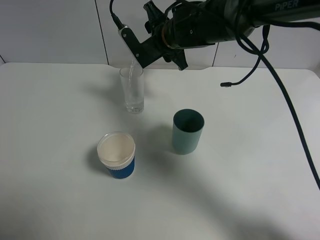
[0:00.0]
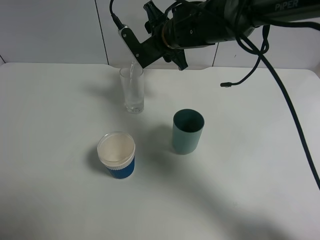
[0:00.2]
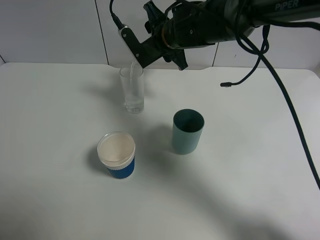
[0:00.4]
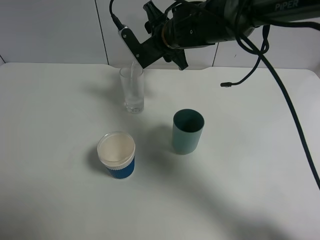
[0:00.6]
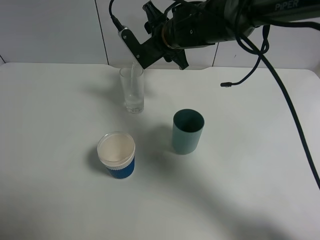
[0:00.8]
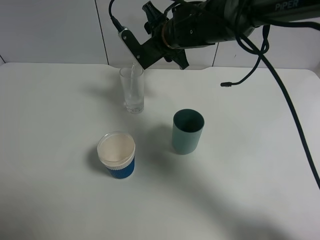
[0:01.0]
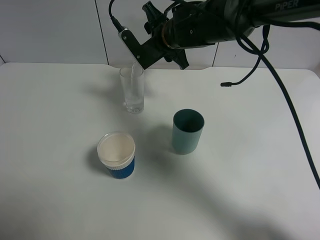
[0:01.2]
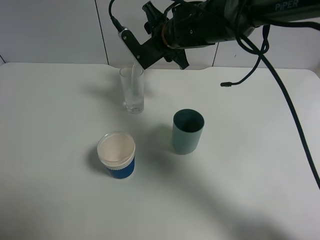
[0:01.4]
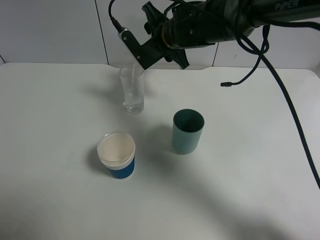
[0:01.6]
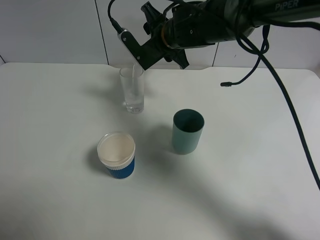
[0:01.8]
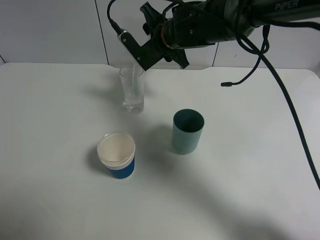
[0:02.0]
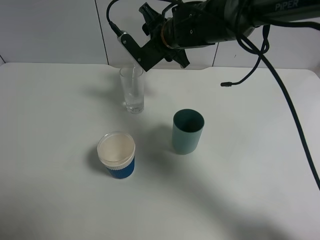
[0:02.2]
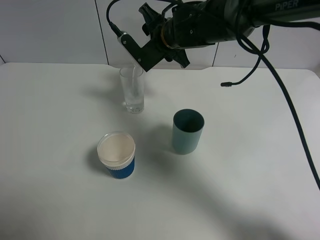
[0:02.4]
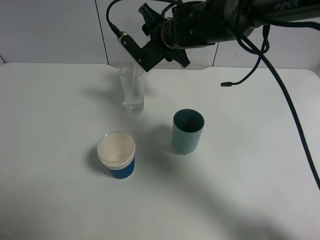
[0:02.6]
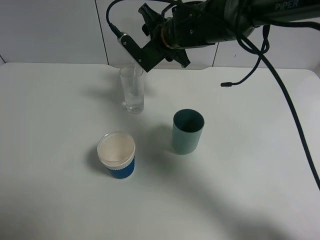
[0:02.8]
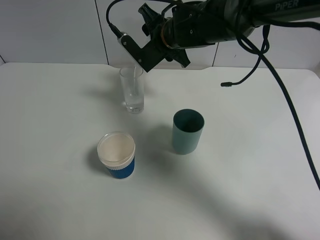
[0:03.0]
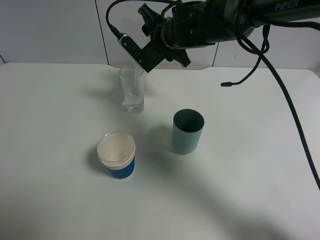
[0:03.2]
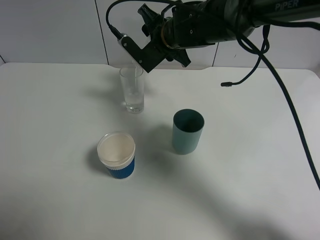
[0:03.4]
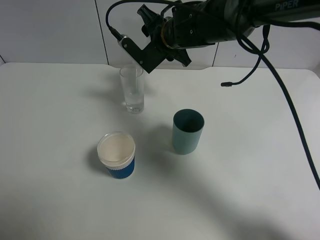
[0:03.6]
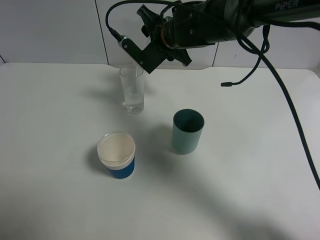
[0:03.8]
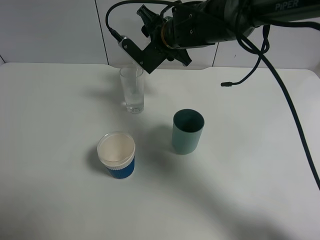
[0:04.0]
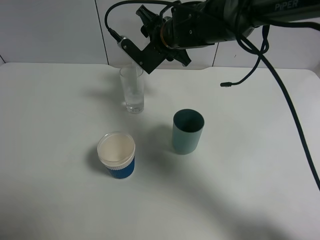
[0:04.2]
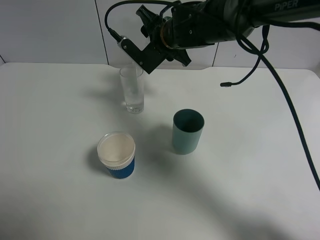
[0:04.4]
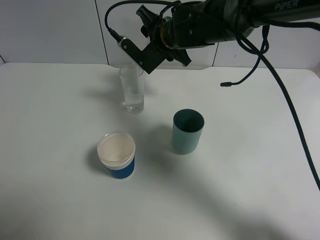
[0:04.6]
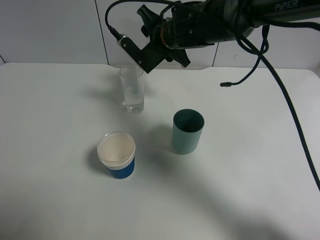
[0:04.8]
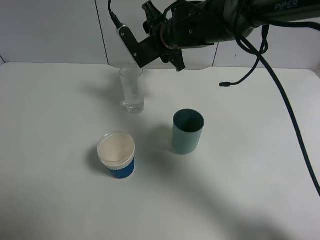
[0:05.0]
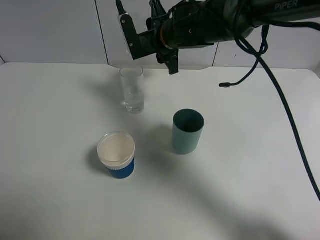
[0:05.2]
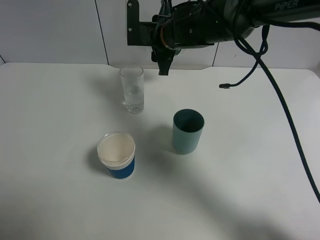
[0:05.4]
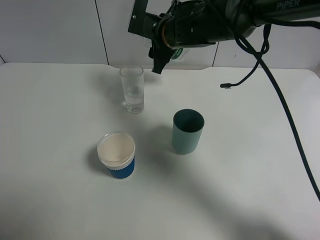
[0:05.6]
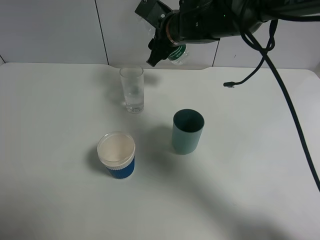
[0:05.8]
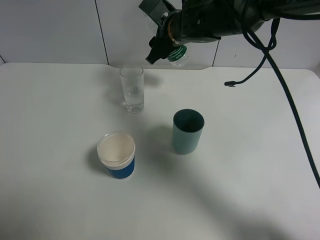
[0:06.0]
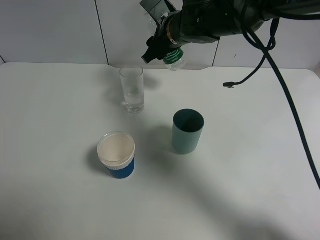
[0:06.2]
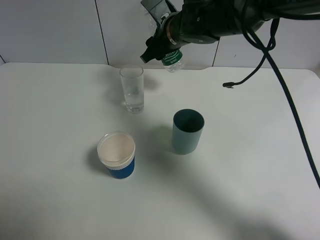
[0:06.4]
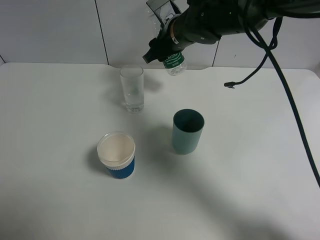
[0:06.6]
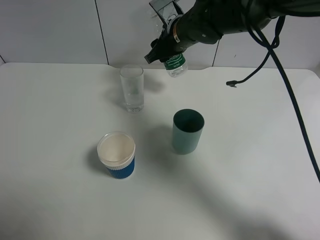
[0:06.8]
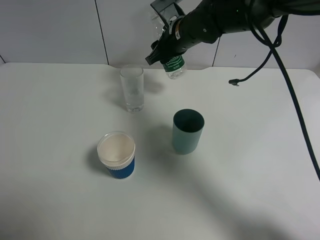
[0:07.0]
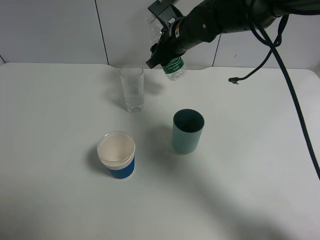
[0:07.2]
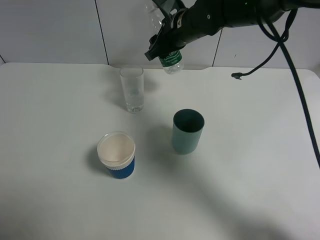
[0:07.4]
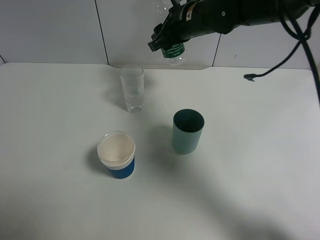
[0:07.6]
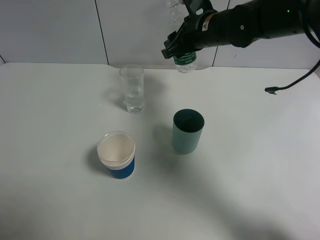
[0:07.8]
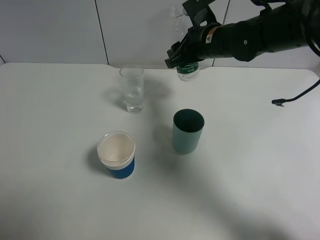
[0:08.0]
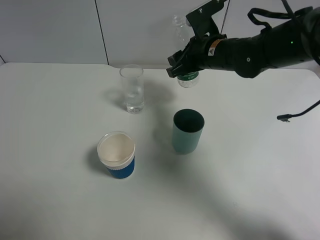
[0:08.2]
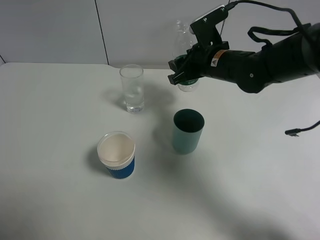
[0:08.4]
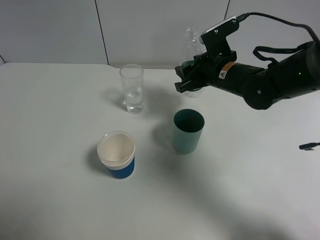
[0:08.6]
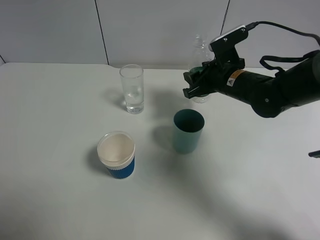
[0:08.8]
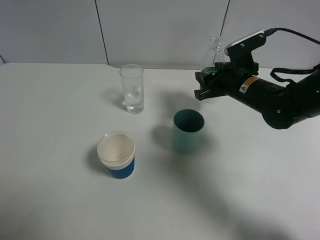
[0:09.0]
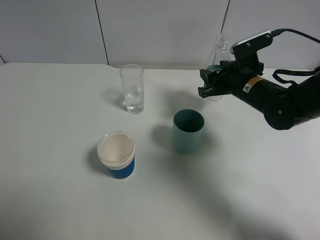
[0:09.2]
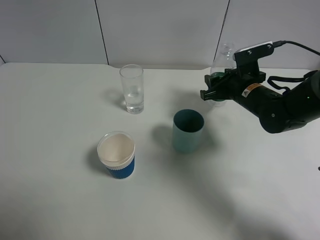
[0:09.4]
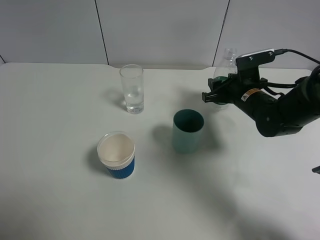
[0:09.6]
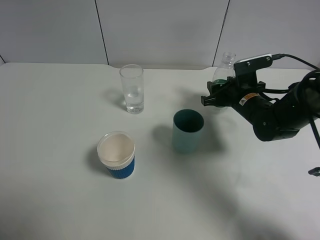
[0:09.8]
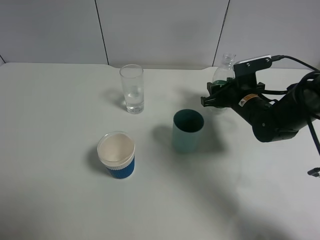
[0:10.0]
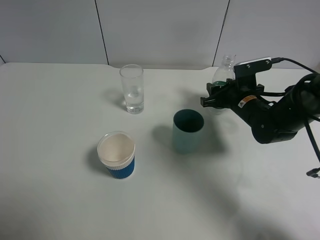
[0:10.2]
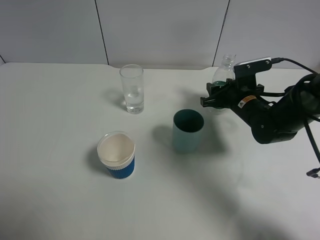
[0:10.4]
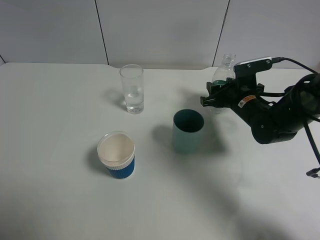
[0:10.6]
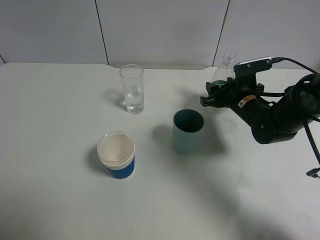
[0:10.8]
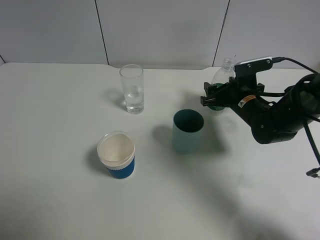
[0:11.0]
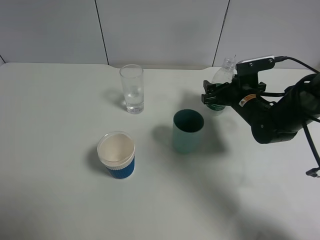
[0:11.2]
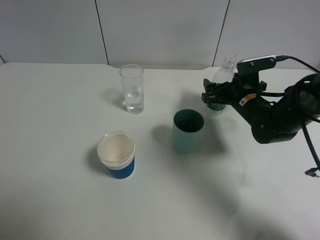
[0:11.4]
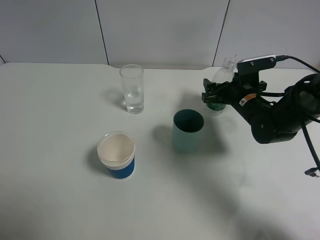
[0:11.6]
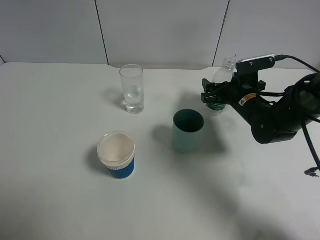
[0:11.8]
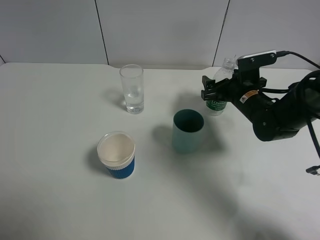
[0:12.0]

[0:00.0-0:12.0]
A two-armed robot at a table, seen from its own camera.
Task of the whole recording: use a gripper to hold the bottle of the drink and pour it into a random cup.
Step, 0:00.0 to 0:05.6: Pour the mineral water into the glass with the right gripper.
0:00.0 to 0:01.6: Both grippers stay about where they are.
0:01.6 to 0:03.0: The grippers move only a little.
0:03.0 to 0:04.4: Neither gripper changes place.
0:06.0 to 0:07.6: The grippers stay close to where they were, moving slightly.
0:07.6 to 0:09.0: The right gripper heads to the right, downward and backward, covering roughly 15 cm.
0:09.0 to 0:10.4: The right gripper heads downward, covering approximately 5 cm.
0:10.4 to 0:12.0: The right gripper opens its fingers.

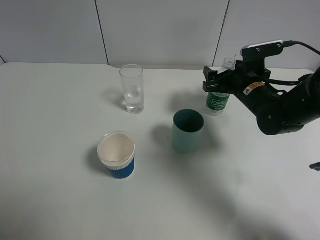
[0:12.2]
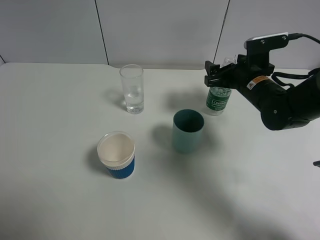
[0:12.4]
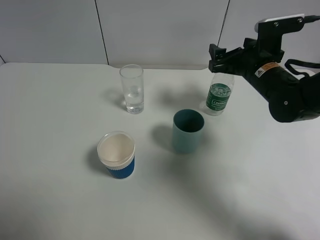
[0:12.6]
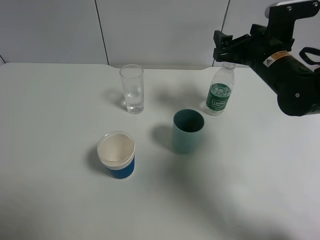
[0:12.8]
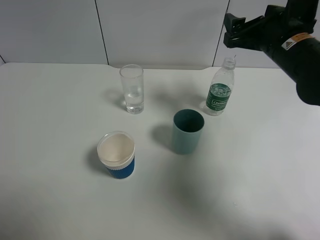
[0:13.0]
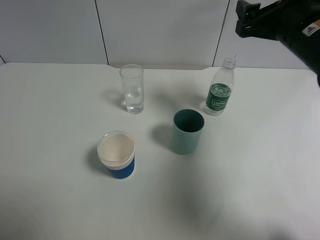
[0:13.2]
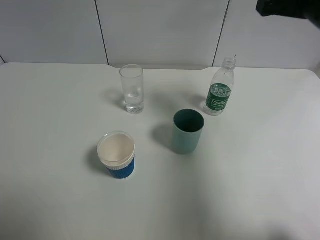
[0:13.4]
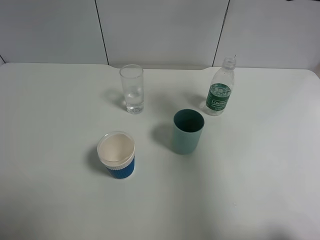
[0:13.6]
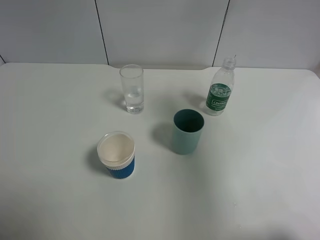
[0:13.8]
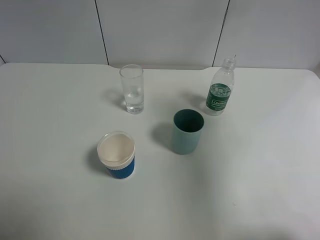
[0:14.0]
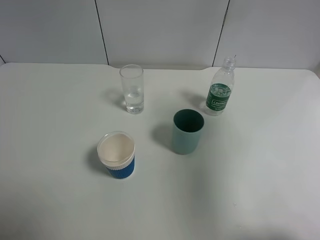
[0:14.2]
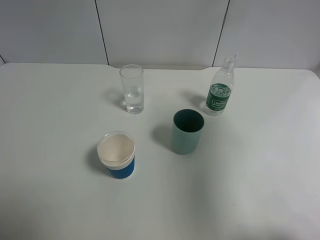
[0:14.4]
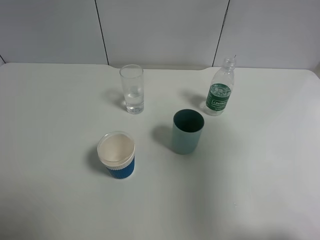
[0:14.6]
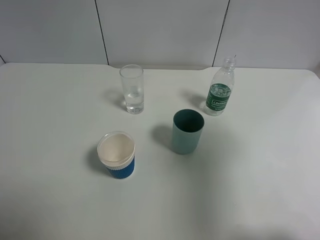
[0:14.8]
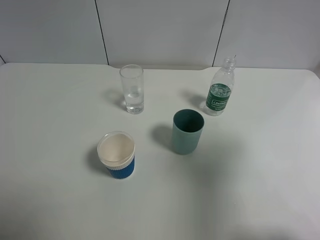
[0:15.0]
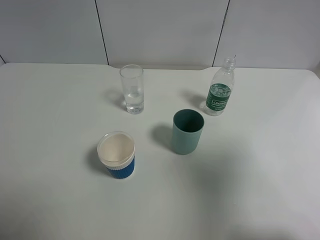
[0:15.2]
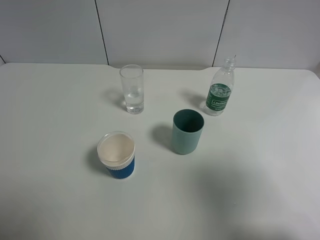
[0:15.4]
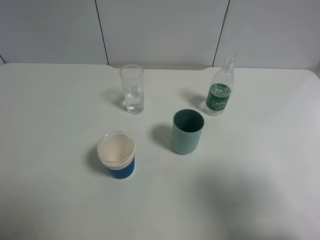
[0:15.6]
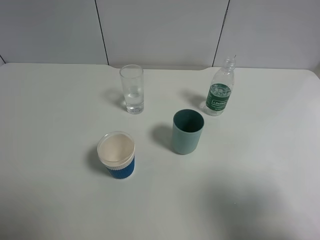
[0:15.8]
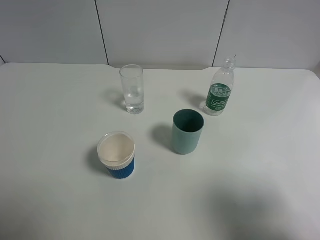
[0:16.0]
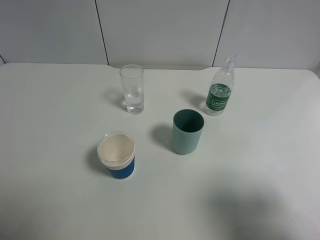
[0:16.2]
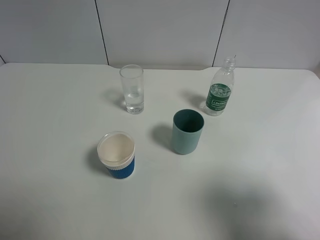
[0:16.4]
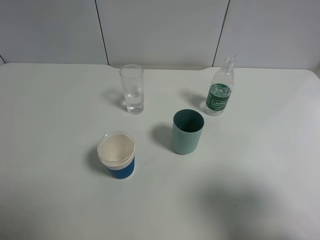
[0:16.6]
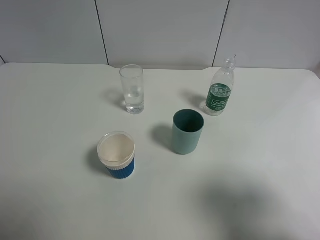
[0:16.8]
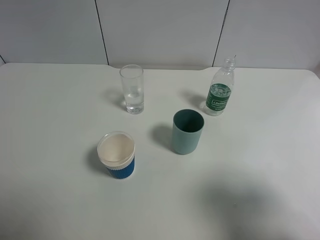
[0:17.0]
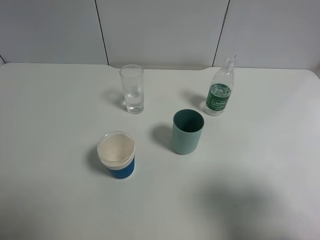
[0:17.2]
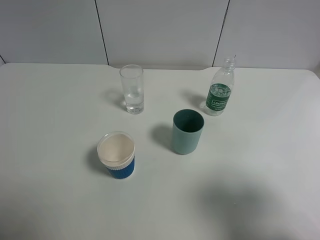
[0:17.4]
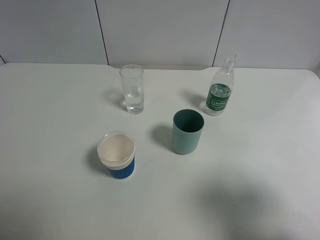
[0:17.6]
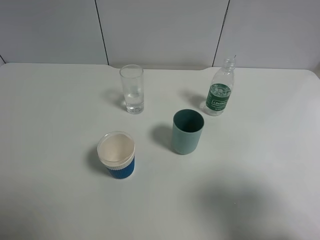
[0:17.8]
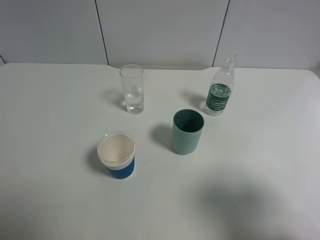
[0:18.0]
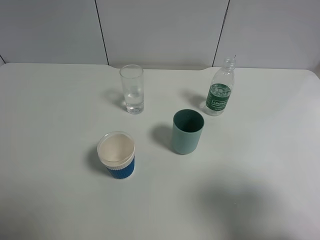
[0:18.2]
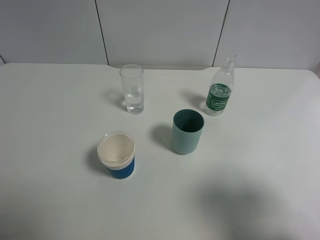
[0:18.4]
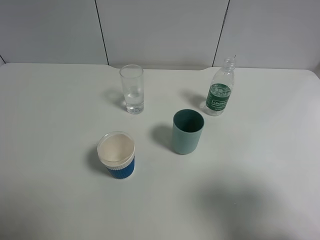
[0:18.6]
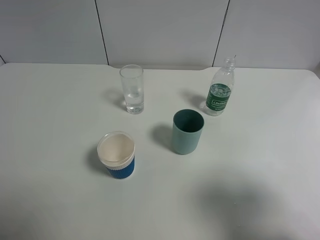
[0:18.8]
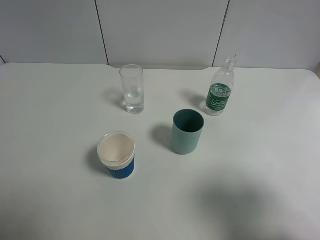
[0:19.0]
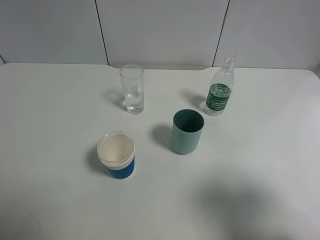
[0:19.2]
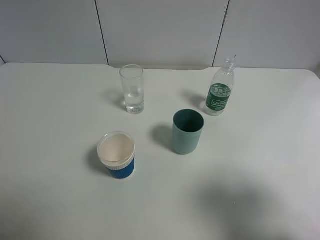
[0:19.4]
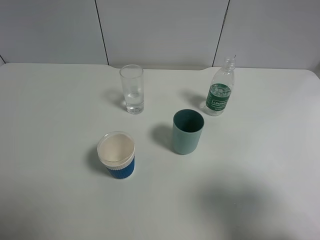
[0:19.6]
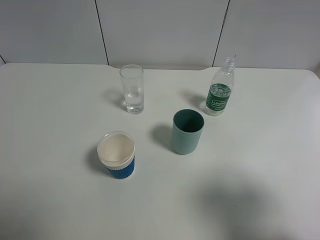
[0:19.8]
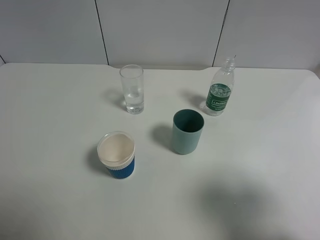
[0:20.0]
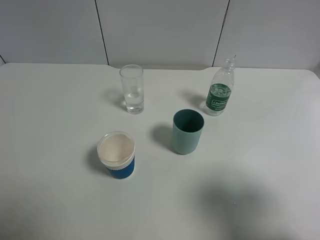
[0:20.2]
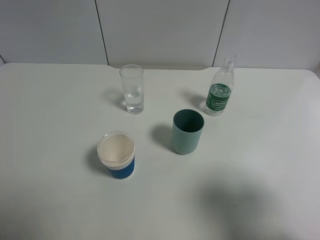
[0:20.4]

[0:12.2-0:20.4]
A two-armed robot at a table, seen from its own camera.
Task of the whole recording: use a gripper to hold the bottle of the drink and pour it into a random cup.
0:12.2 to 0:13.8: The right gripper travels upward and backward by roughly 25 cm.
0:13.8 to 0:15.4: The right gripper heads backward, covering some 20 cm.
0:15.4 to 0:17.2: The right gripper is displaced downward by roughly 5 cm.
0:17.2 to 0:20.4: Both grippers stay about where they are.

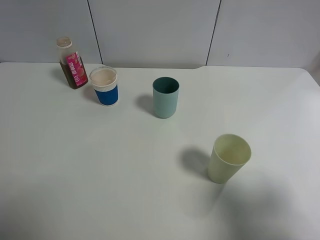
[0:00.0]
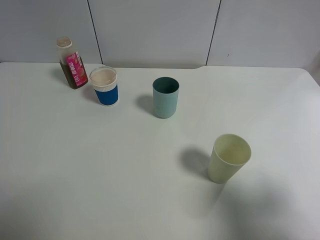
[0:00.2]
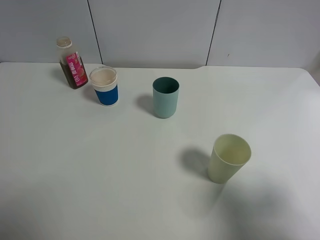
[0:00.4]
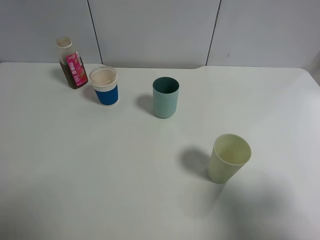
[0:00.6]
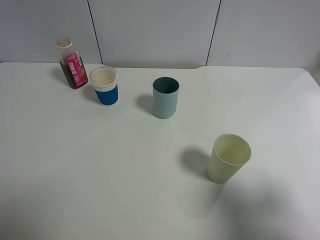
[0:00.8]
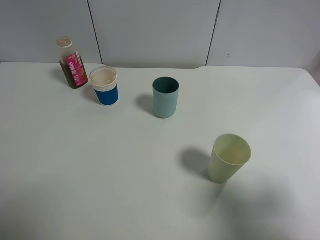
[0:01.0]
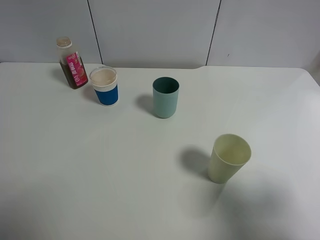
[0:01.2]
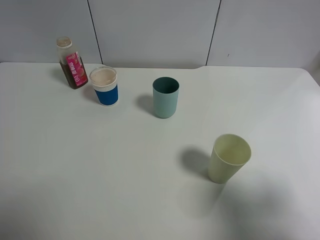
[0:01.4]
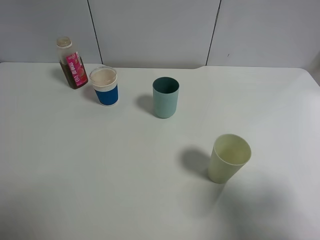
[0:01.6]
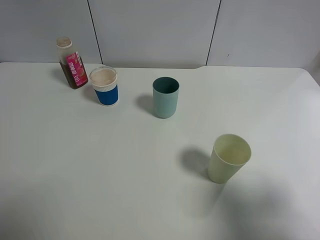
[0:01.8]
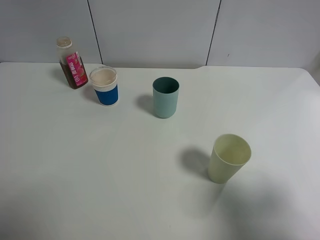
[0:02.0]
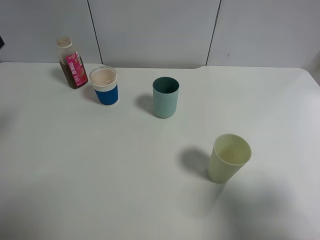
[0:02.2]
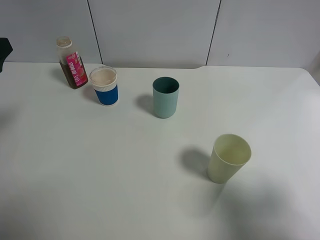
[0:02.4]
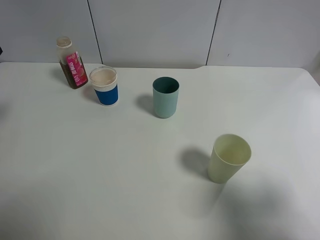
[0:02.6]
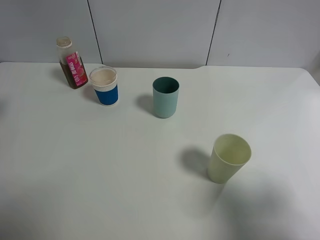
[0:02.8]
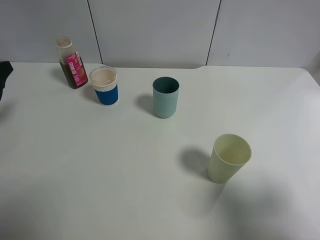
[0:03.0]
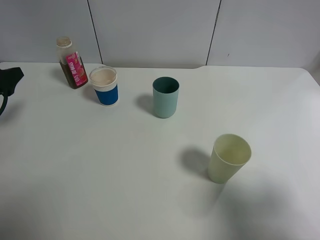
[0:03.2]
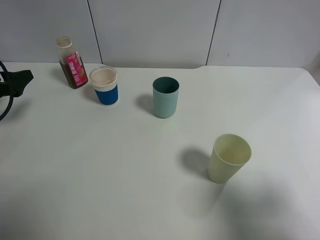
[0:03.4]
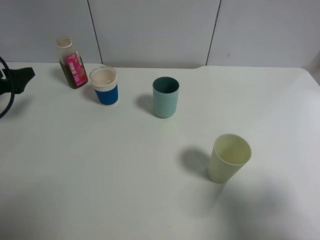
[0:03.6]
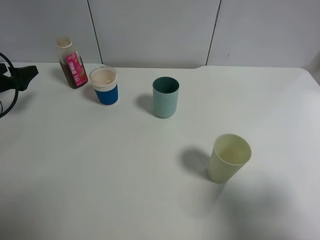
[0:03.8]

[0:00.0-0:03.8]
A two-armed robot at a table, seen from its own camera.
Task of the whole recording: use a gripper to hold the bottle of the drink and pour it into a random cup.
0:00.0 to 0:01.2: Both grippers stay about where they are.
0:02.6 to 0:03.8: The left gripper is displaced downward, forward and to the left by roughly 15 cm.
